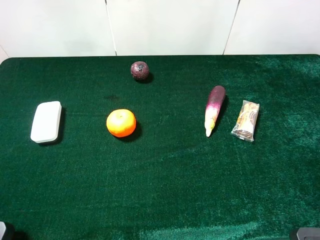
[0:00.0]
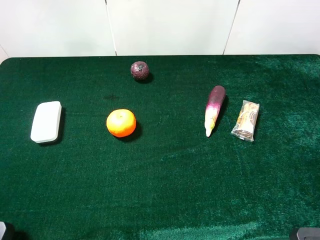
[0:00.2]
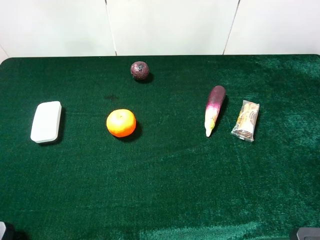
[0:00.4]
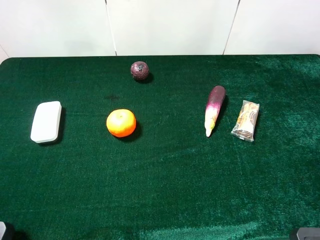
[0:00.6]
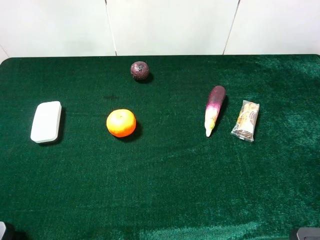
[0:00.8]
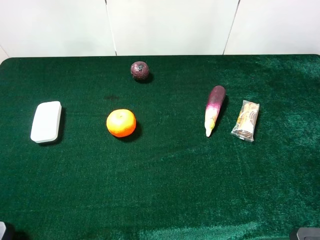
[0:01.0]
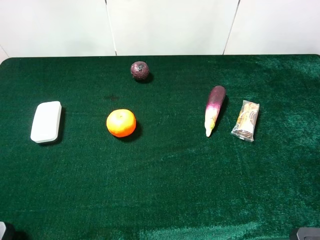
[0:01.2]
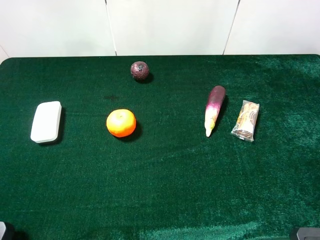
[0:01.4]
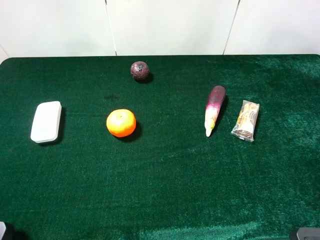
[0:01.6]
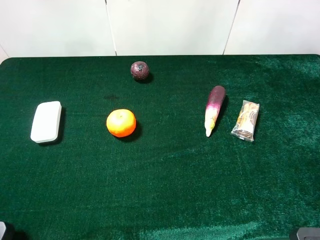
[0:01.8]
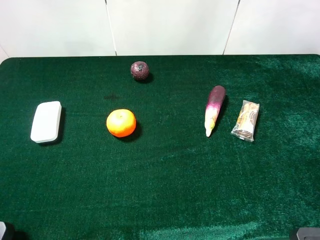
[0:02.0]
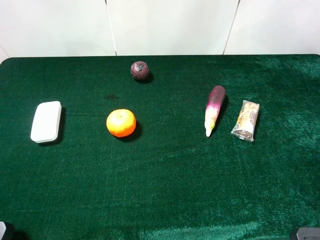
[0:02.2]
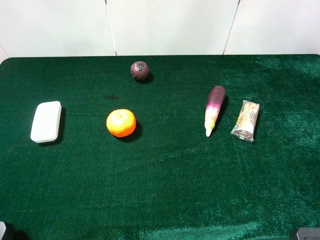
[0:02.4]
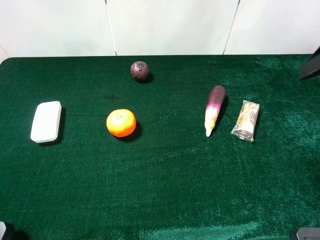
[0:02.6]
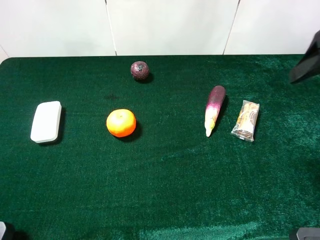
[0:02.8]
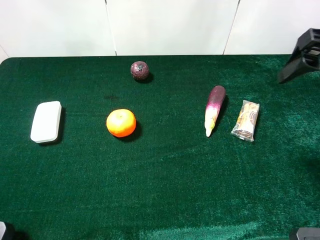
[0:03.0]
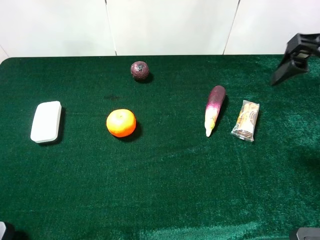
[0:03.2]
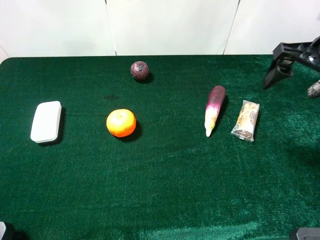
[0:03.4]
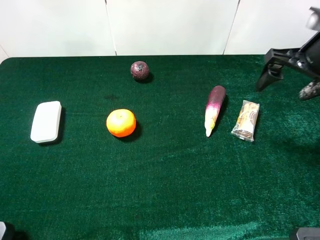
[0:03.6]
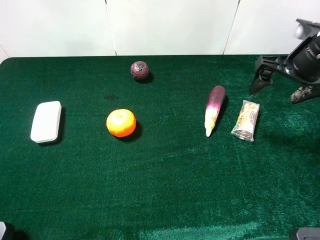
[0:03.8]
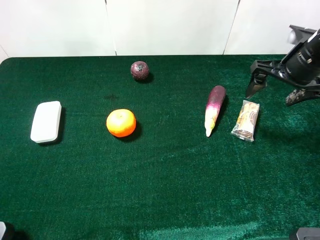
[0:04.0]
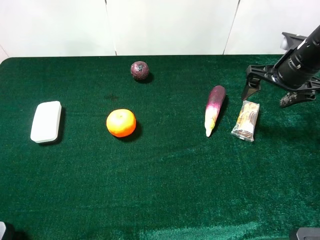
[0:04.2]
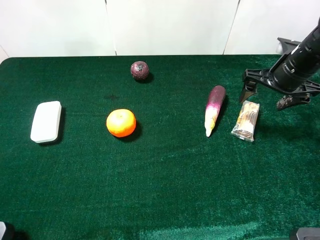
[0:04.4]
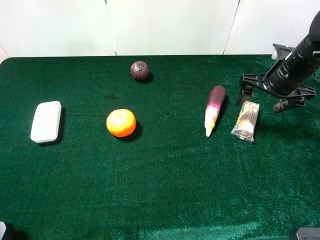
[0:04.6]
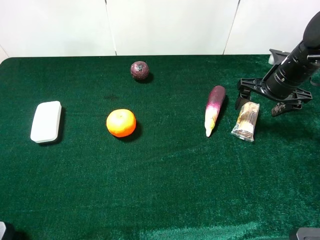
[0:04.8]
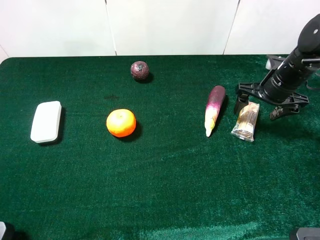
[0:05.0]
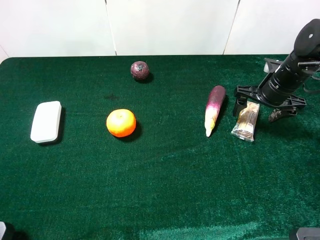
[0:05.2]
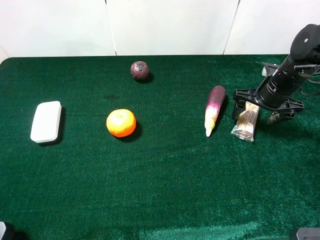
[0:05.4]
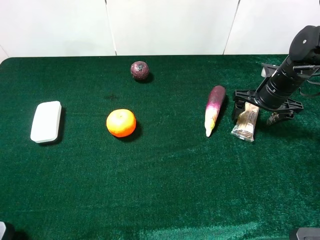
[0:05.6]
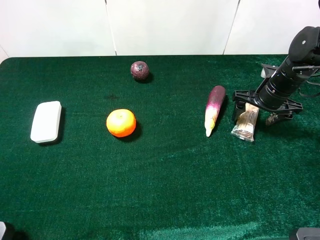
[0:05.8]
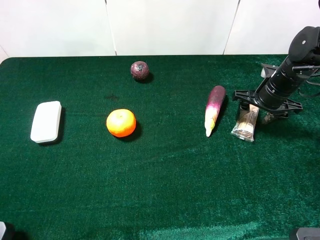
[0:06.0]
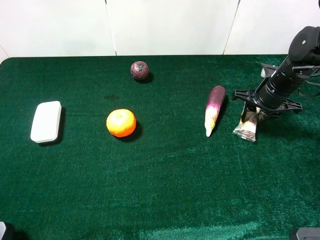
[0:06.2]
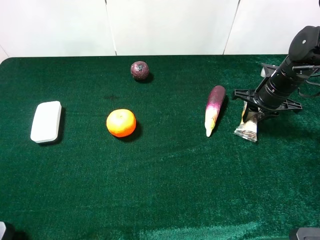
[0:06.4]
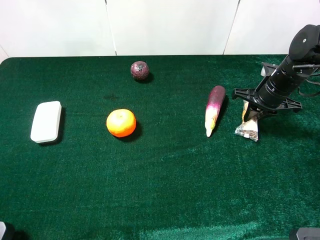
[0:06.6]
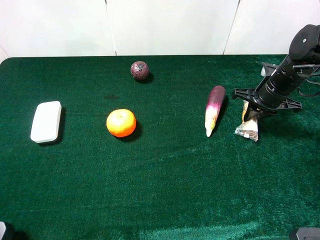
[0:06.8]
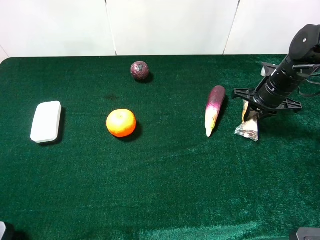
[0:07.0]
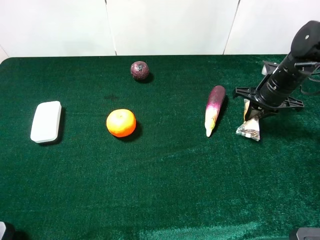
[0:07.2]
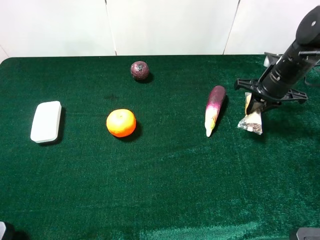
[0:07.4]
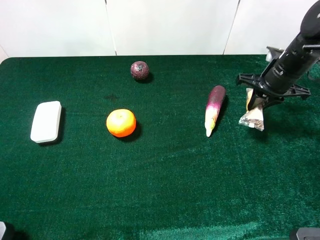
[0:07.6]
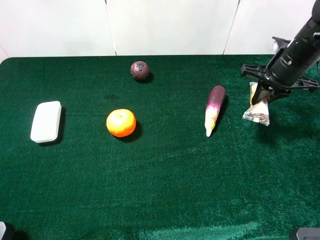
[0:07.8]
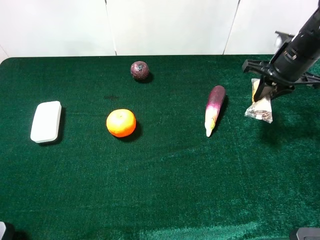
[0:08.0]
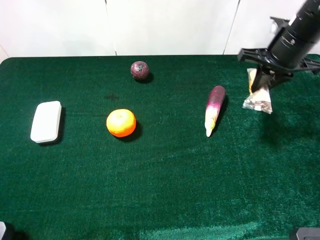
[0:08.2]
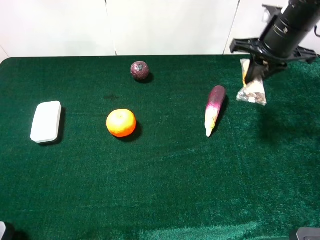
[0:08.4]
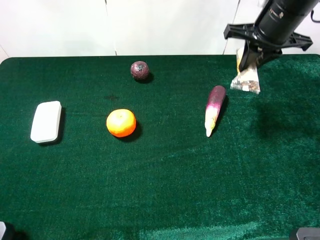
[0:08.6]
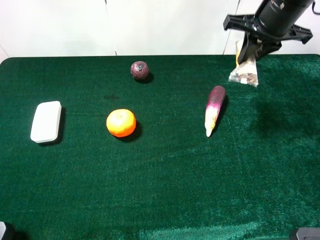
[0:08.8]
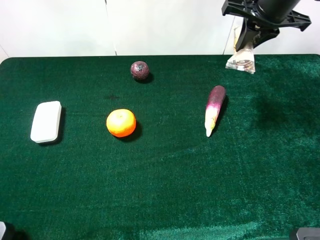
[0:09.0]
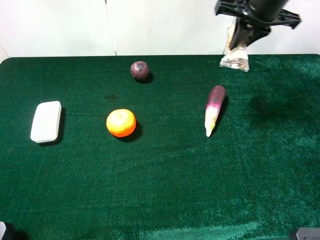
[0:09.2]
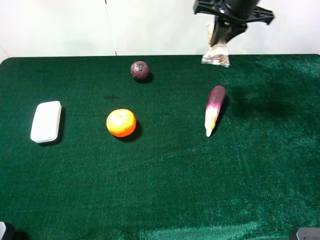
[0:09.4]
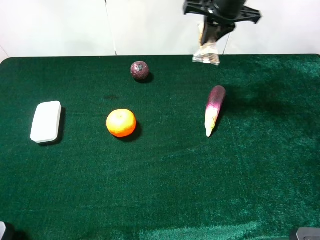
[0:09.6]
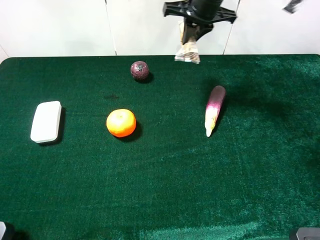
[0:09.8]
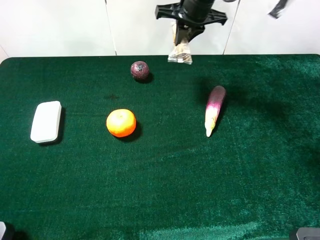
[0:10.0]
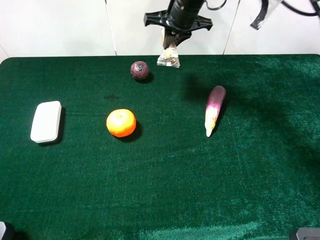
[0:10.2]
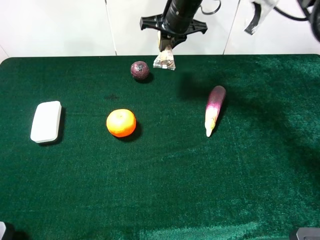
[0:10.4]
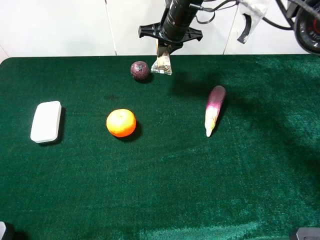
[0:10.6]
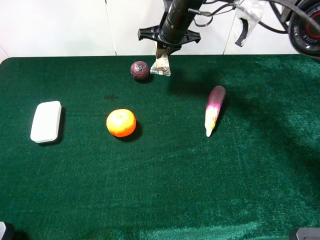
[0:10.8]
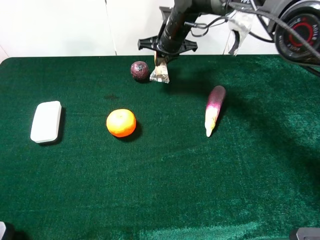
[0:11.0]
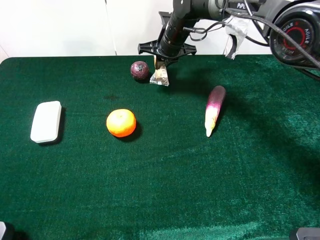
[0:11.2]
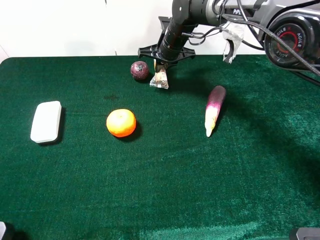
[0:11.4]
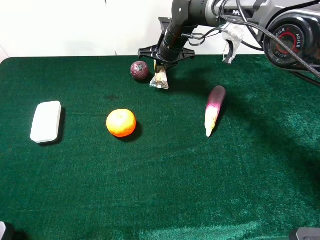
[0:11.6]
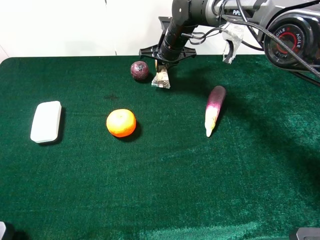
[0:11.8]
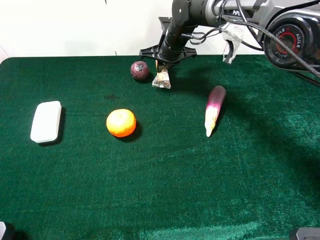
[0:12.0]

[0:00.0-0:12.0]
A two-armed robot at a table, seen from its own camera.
Task of the whole recording: the gripper move the object.
Step, 0:00.0 to 0:06.6: Grasp the chocolate with the right gripper.
0:01.6 to 0:03.0: The right gripper goes some 20 cm forward.
0:03.0 to 0:04.4: The right gripper is displaced downward and forward by roughly 15 cm.
0:04.4 to 0:06.0: The right gripper goes about 5 cm downward, and closes up.
0:06.0 to 0:07.6: The right gripper shifts some 5 cm upward, and closes.
0:07.6 to 0:09.0: The right gripper is displaced upward and to the left by roughly 15 cm.
0:09.0 to 0:10.4: The right gripper moves to the left, downward and forward, some 20 cm.
0:10.4 to 0:12.0: The right gripper shifts some 10 cm downward.

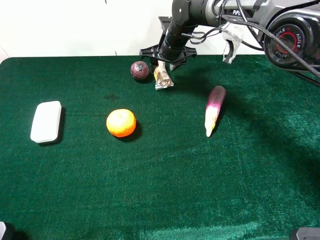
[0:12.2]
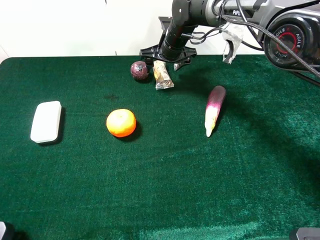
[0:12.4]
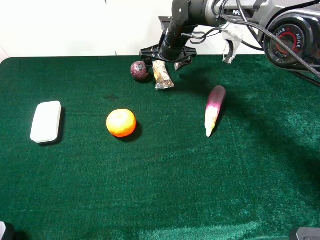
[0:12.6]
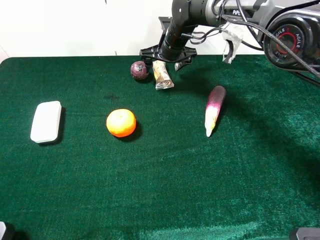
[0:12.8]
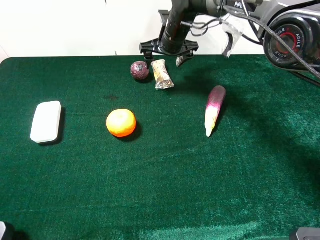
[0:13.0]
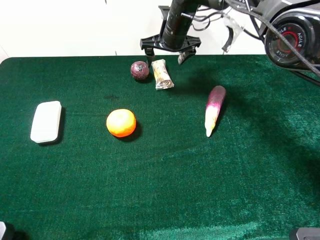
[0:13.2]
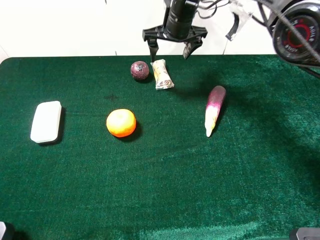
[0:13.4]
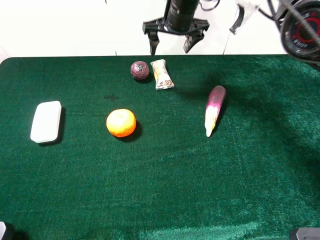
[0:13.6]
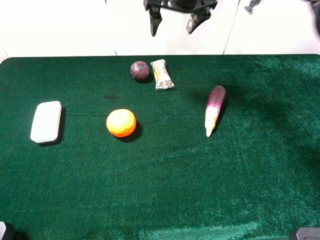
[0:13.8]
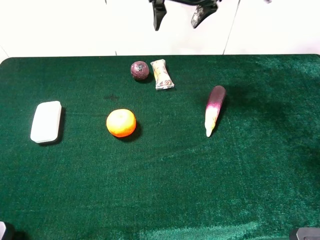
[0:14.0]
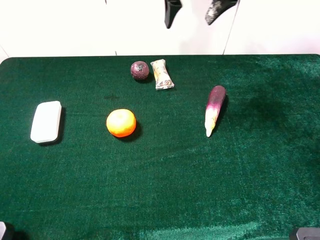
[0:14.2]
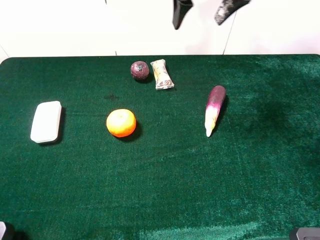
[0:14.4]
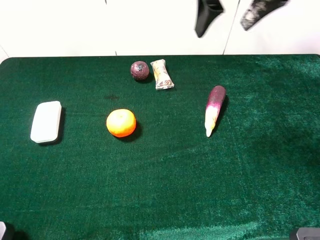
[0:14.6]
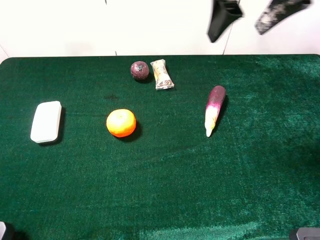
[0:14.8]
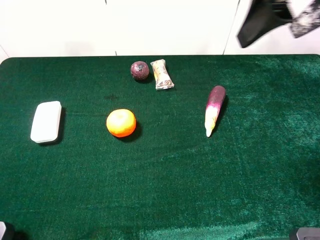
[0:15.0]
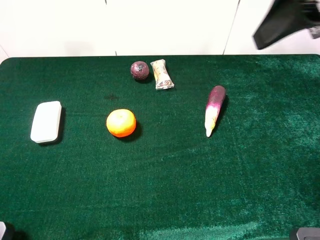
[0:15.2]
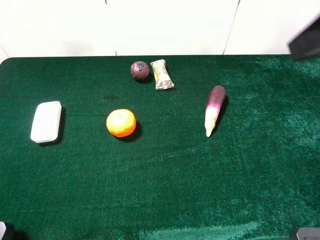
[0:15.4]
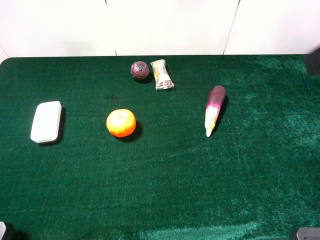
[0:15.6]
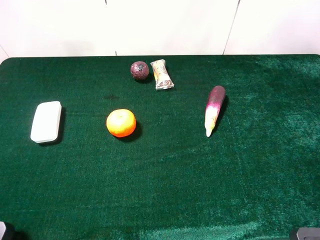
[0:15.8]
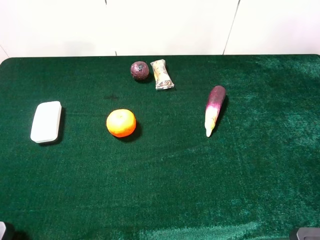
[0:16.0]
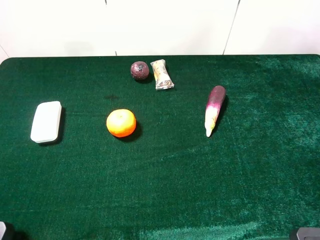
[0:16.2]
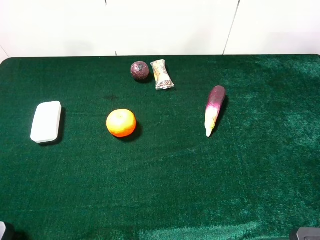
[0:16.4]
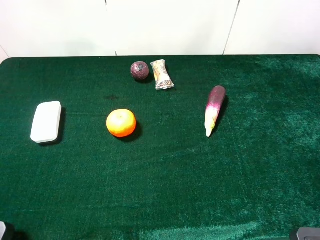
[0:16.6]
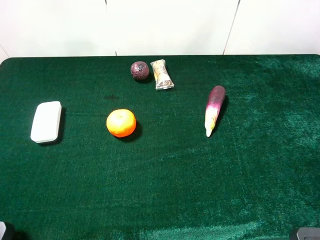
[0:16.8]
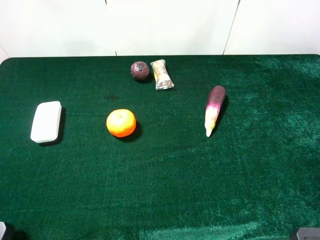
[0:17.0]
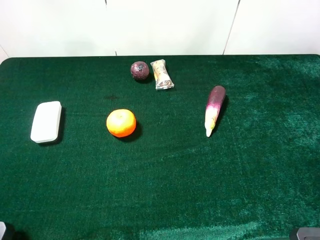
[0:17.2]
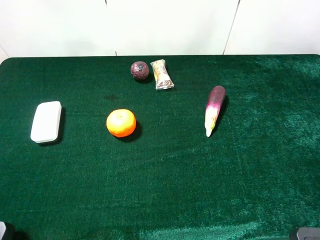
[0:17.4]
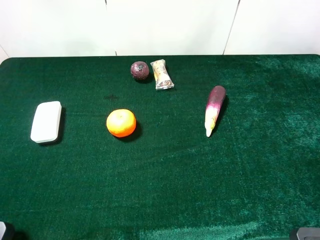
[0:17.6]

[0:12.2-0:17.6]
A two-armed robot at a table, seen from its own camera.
Task of the whole recording: the gripper move the object.
0:12.2 to 0:13.6: The right gripper shifts roughly 10 cm upward.
0:13.6 to 0:15.0: The right gripper heads backward, upward and to the right, covering some 30 cm.
0:15.0 to 0:16.2: The right gripper travels backward and to the right by about 20 cm.

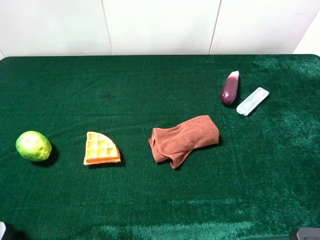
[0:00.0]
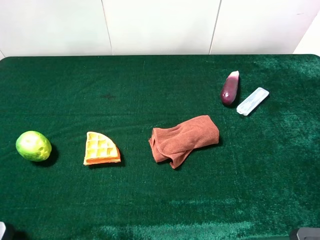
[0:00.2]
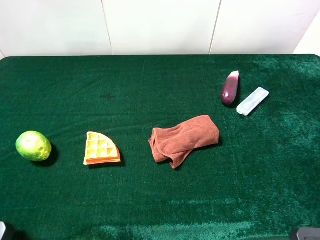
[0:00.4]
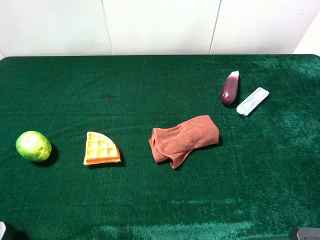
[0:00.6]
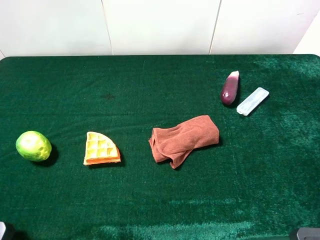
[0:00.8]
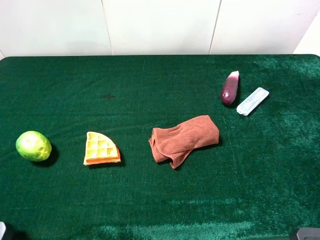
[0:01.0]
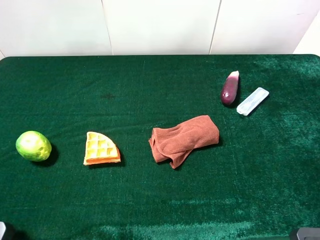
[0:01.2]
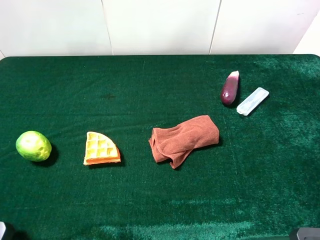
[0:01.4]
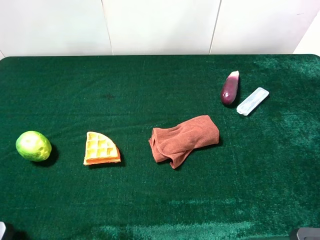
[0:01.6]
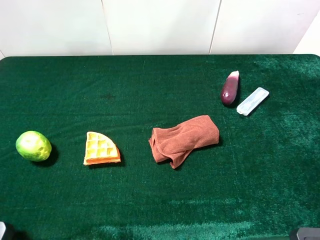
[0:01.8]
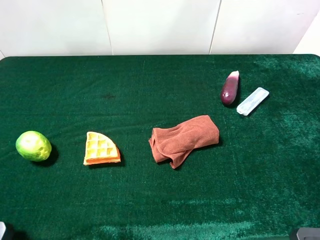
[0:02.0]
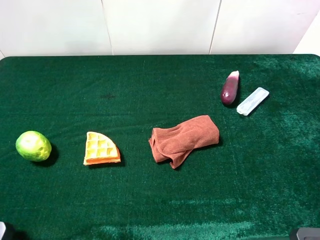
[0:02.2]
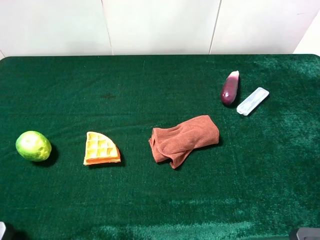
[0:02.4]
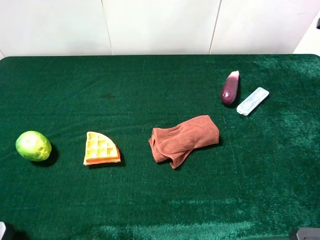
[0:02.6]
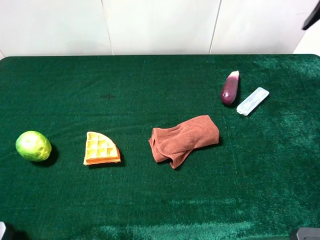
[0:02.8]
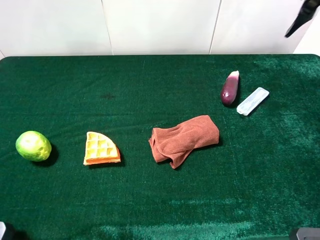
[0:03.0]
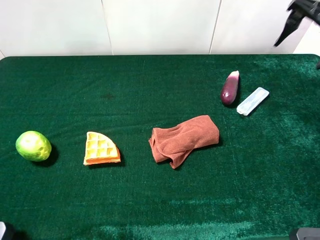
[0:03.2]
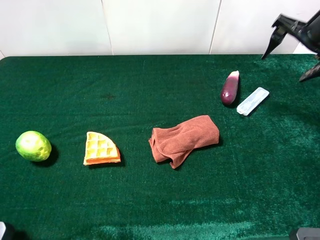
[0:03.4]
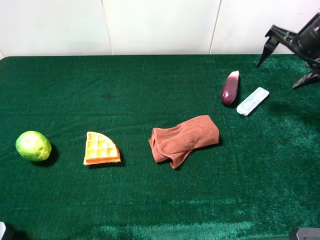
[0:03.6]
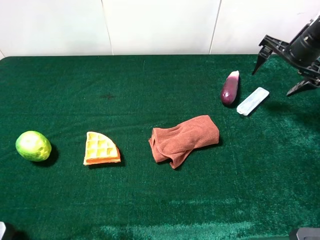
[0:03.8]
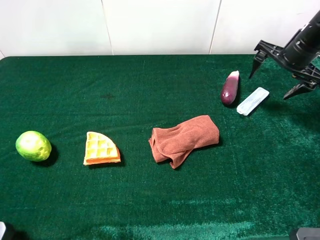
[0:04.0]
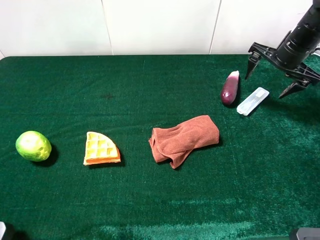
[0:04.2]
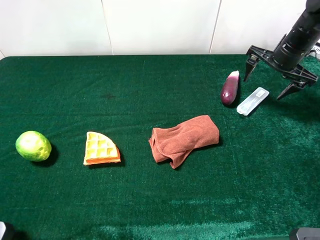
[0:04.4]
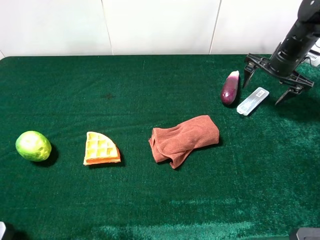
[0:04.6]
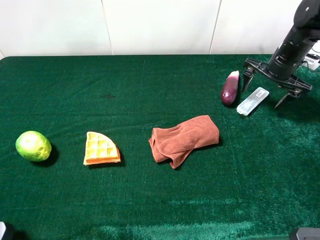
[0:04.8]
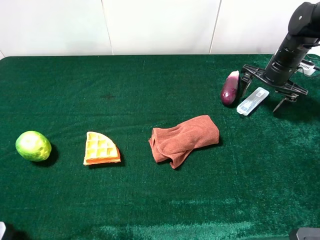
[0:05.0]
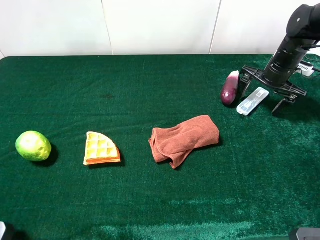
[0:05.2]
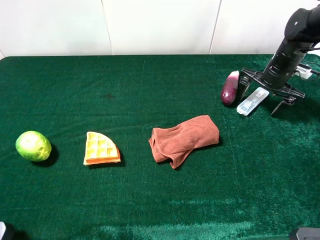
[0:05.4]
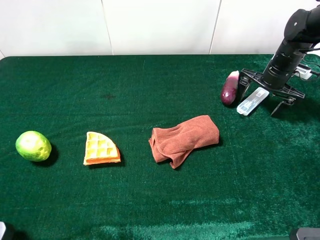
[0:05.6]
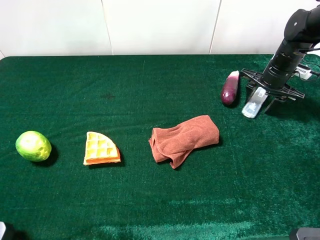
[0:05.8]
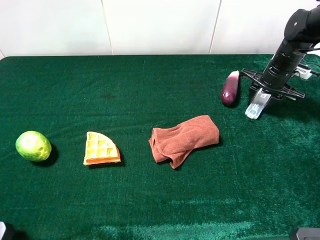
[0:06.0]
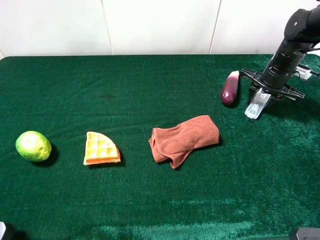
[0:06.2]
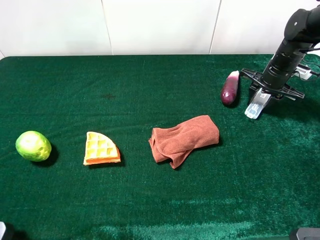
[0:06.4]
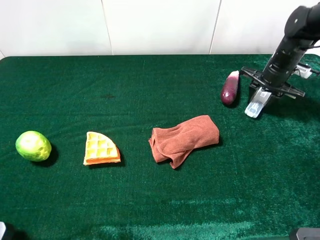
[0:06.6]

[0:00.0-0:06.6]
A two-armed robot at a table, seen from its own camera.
Task of the whole recording: the gripper move the object.
Step, 0:00.0 to 0:05.8: Grasp the compass with the right gripper.
0:01.6 to 0:03.2: The right gripper is displaced forward by roughly 25 cm.
0:03.2 to 0:05.0: The right gripper moves downward and forward, approximately 20 cm.
0:05.0 to 0:06.6: The right gripper closes up.
